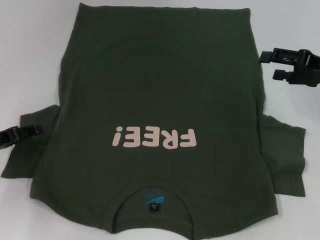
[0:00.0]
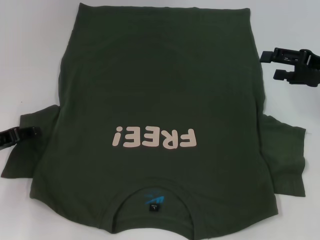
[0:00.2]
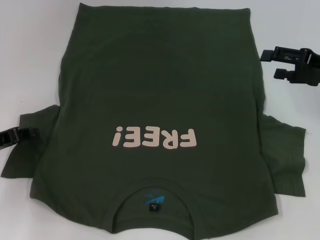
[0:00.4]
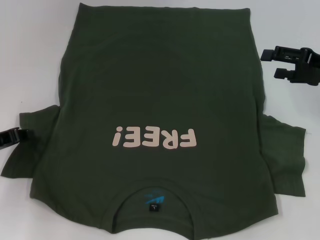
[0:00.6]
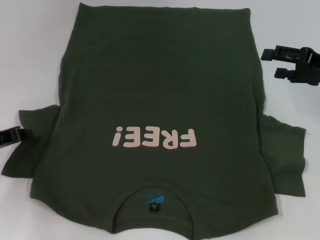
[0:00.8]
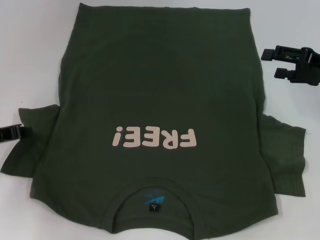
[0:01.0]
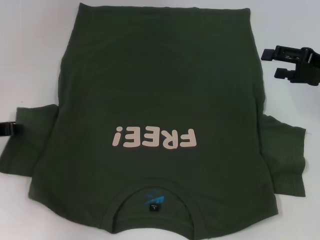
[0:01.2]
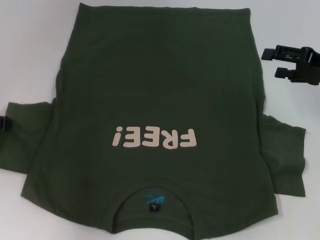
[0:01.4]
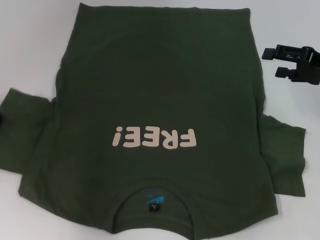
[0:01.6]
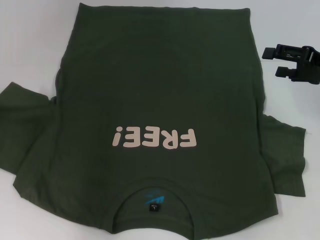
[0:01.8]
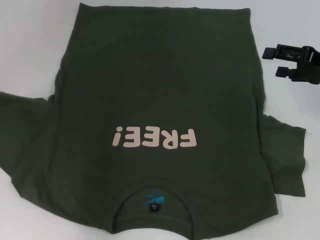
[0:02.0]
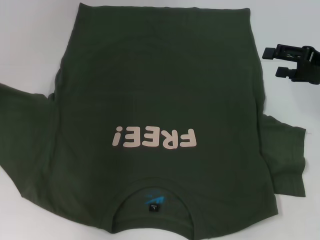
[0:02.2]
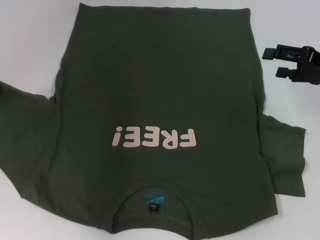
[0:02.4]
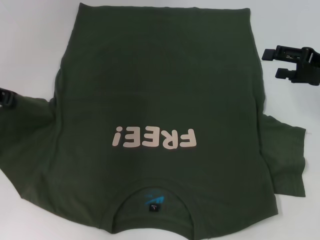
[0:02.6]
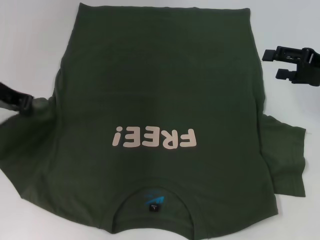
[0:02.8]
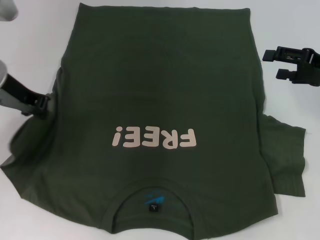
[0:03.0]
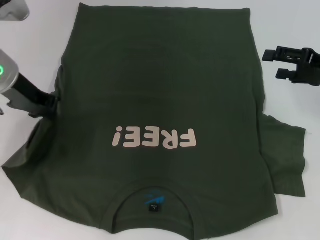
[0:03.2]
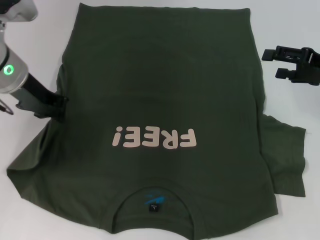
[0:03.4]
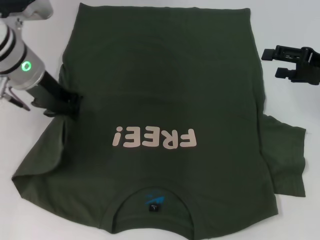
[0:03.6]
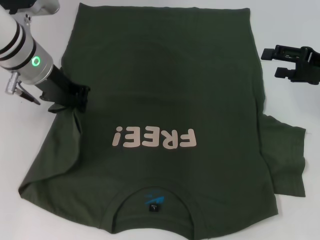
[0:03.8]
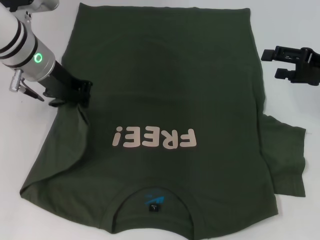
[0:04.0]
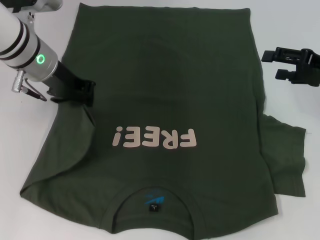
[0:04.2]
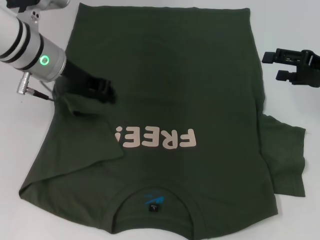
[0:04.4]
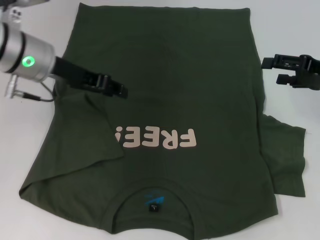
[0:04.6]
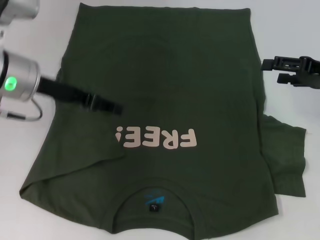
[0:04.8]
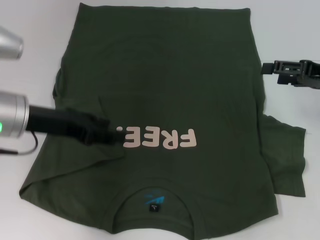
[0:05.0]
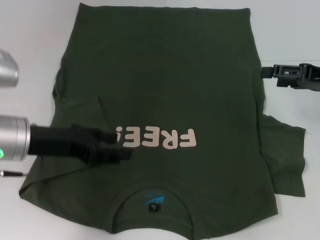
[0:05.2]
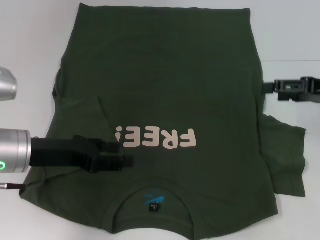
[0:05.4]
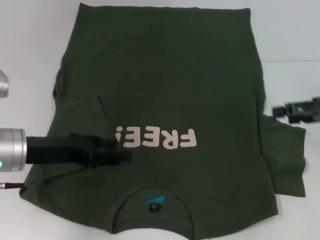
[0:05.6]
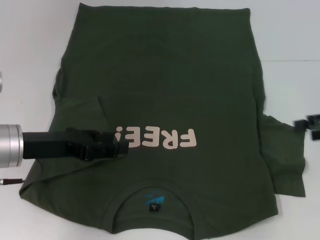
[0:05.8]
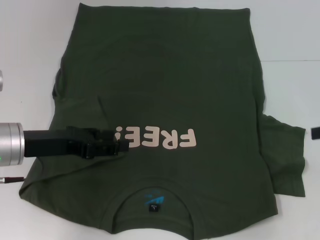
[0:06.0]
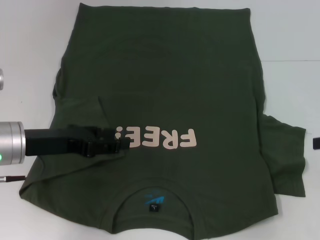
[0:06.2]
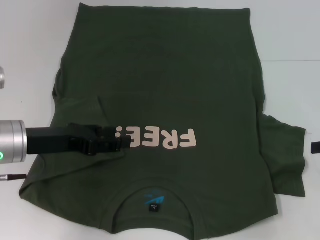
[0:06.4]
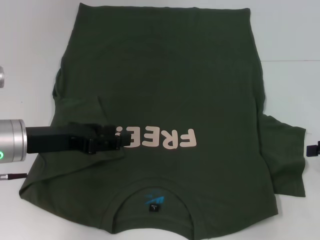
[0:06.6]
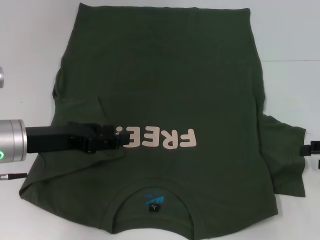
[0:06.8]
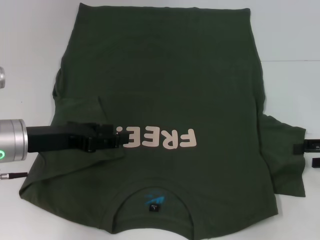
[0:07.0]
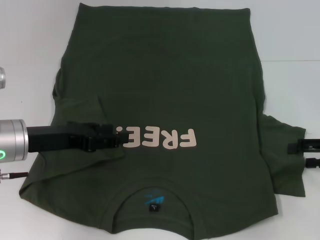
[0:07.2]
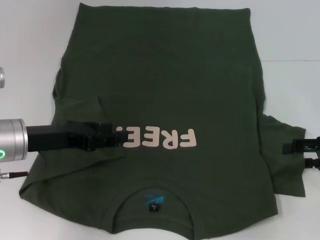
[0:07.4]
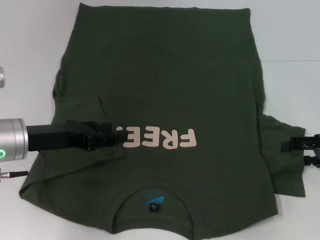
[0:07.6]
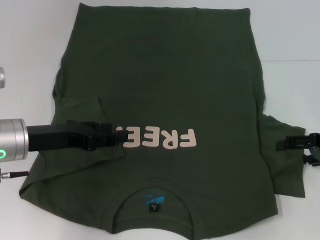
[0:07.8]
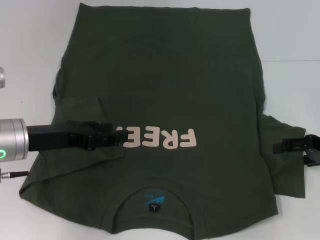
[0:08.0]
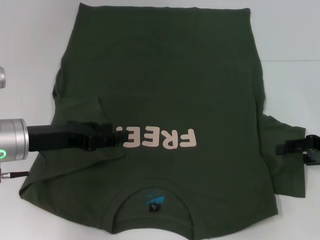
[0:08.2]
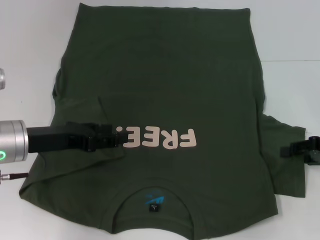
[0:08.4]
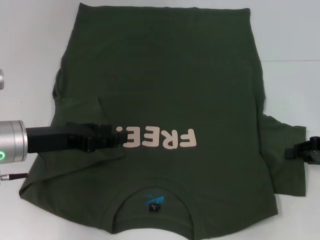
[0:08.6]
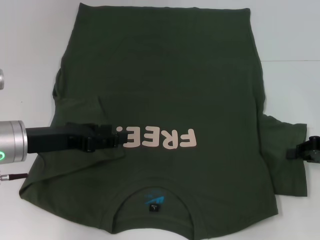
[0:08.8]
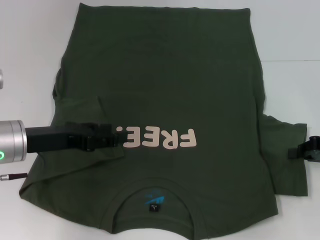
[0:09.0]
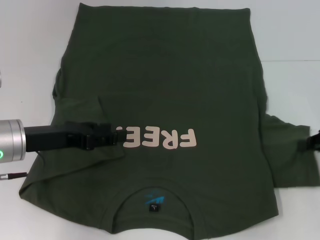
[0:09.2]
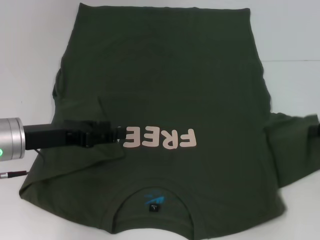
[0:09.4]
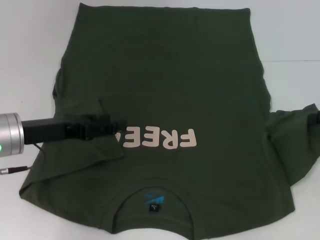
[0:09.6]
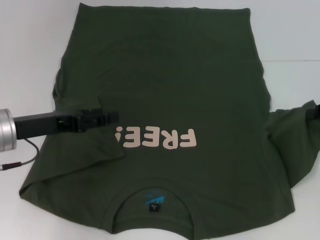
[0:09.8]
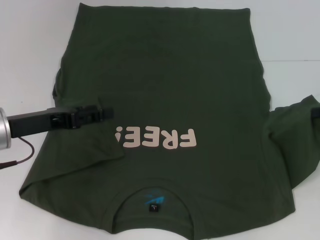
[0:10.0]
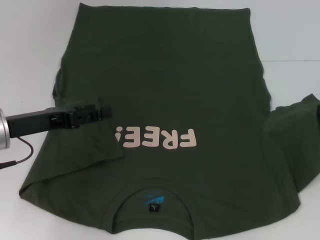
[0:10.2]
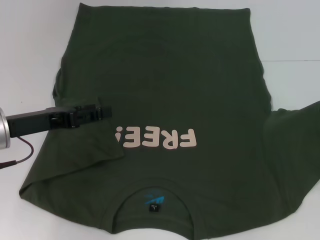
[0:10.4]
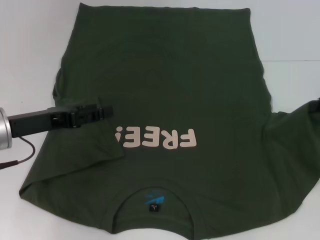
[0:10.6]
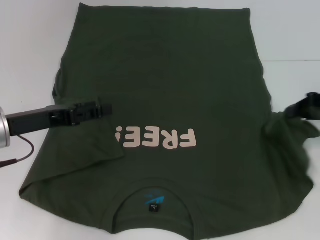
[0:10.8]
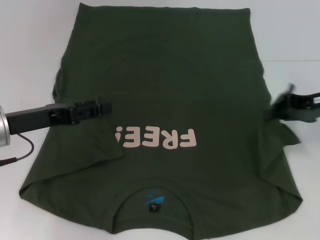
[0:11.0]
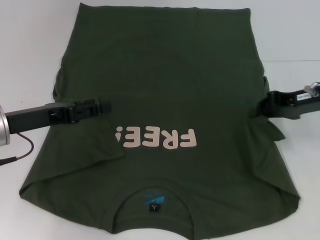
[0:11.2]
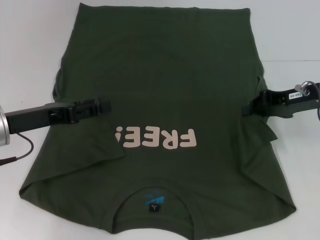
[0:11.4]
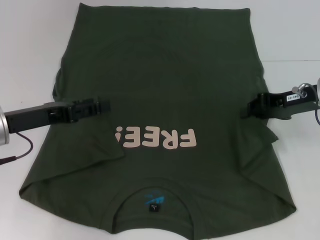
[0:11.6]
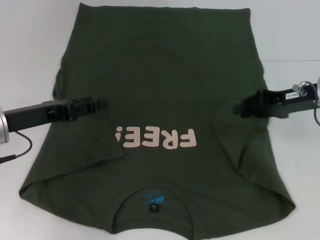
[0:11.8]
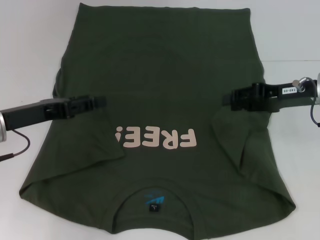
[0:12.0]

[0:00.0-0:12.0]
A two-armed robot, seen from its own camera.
Step, 0:00.0 to 0:04.8: Fold the bottom left sleeve with your left hand.
0:00.0 to 0:01.6: The left gripper is displaced upward by roughly 5 cm, and closes up.
0:01.6 to 0:03.0: The left gripper heads to the right and upward, covering some 10 cm.
0:03.0 to 0:04.4: The left gripper goes about 5 cm to the right.
0:04.4 to 0:06.0: The left gripper moves backward, downward and to the left, about 15 cm, and opens its fingers. Meanwhile the right gripper travels backward and to the right by roughly 10 cm.
0:06.0 to 0:07.6: The right gripper goes some 5 cm downward.
0:07.6 to 0:09.0: The right gripper closes up.
0:09.0 to 0:10.4: The right gripper travels upward by some 5 cm.
0:10.4 to 0:12.0: The right gripper goes roughly 10 cm to the left.

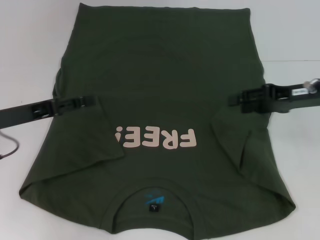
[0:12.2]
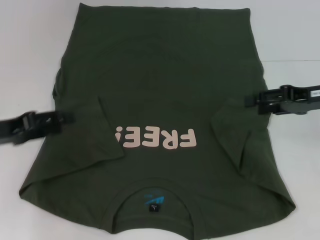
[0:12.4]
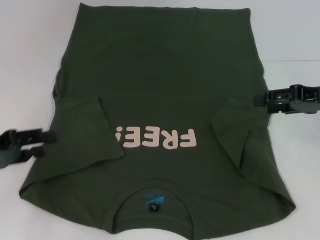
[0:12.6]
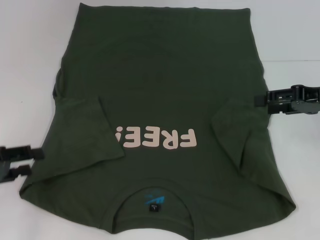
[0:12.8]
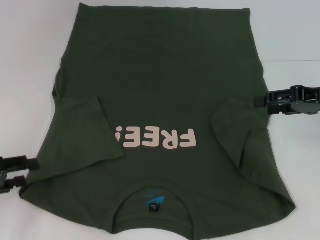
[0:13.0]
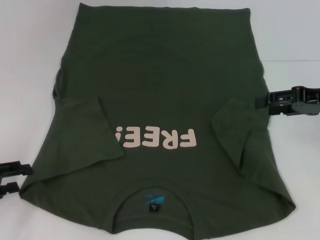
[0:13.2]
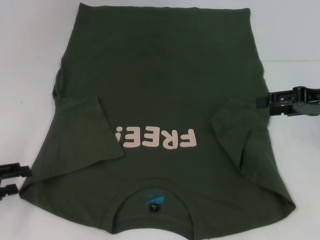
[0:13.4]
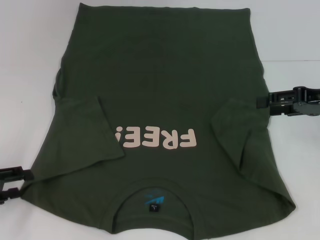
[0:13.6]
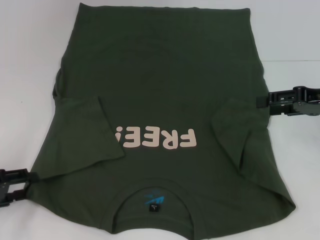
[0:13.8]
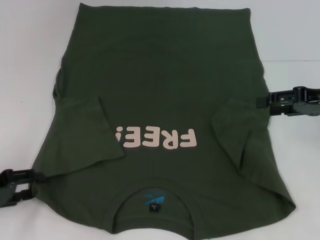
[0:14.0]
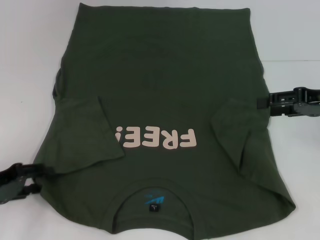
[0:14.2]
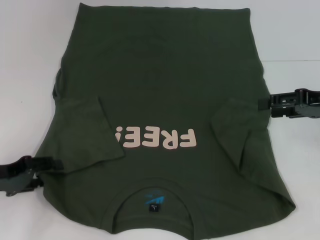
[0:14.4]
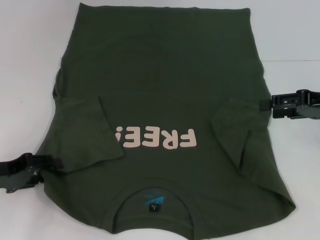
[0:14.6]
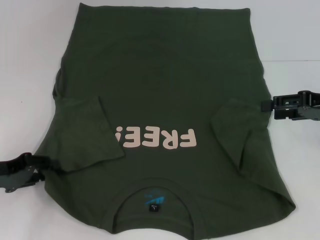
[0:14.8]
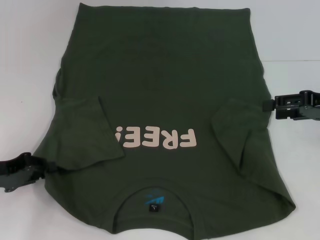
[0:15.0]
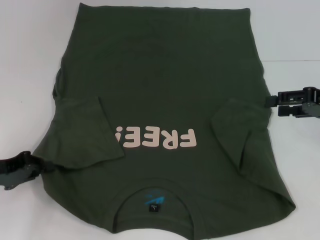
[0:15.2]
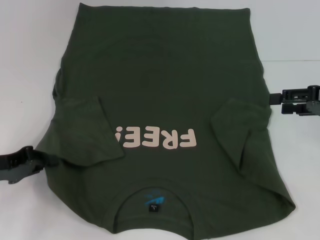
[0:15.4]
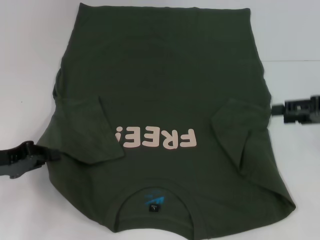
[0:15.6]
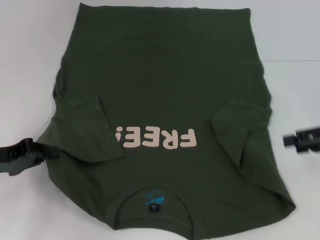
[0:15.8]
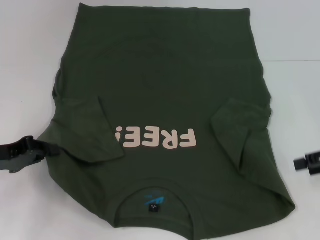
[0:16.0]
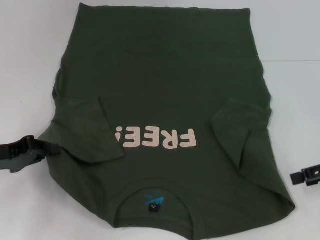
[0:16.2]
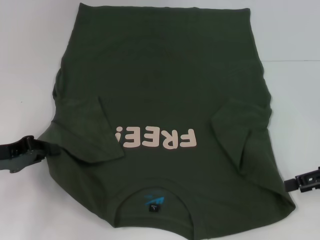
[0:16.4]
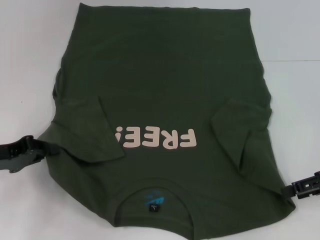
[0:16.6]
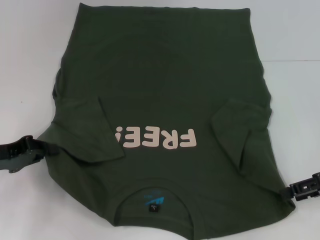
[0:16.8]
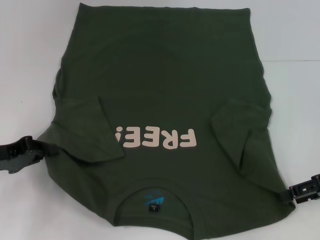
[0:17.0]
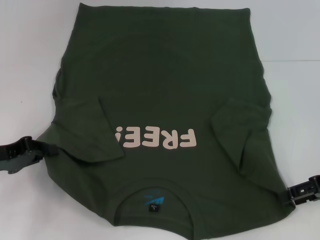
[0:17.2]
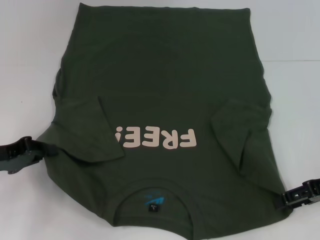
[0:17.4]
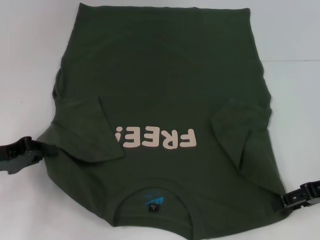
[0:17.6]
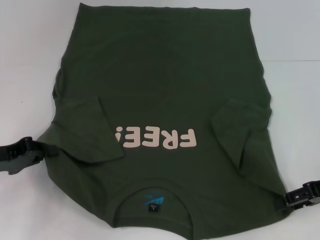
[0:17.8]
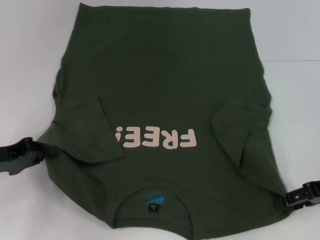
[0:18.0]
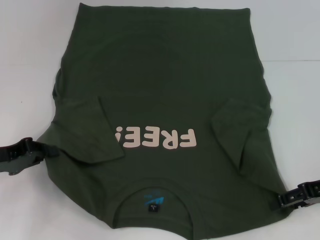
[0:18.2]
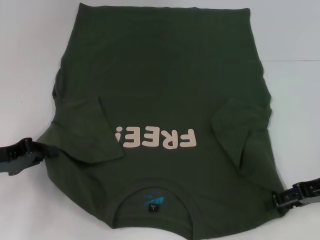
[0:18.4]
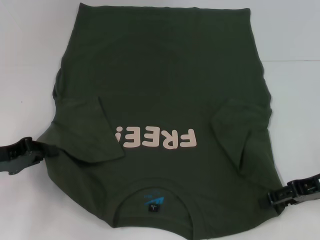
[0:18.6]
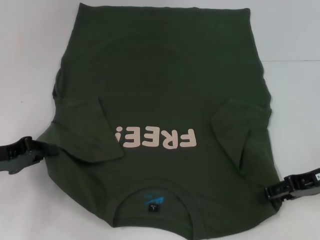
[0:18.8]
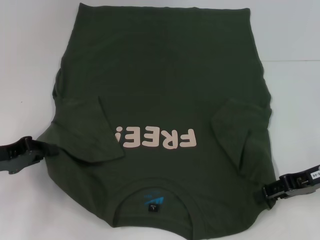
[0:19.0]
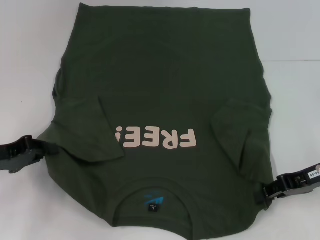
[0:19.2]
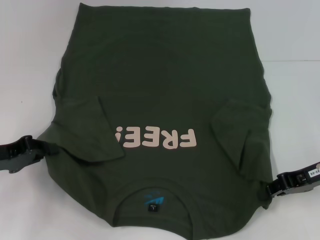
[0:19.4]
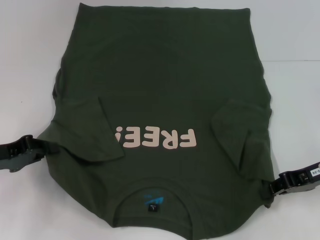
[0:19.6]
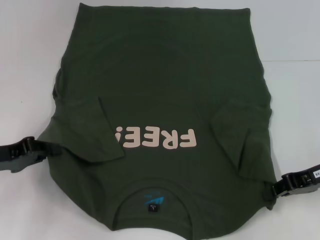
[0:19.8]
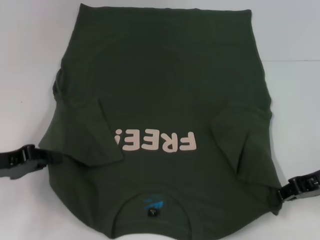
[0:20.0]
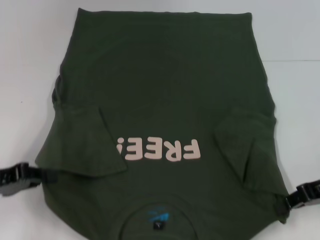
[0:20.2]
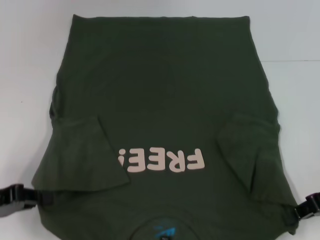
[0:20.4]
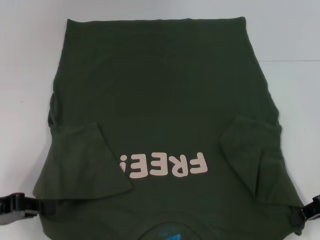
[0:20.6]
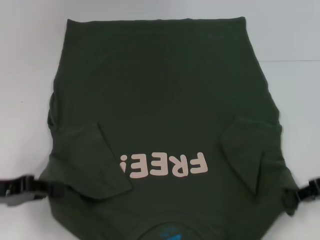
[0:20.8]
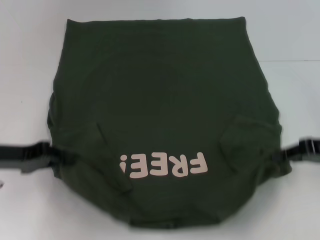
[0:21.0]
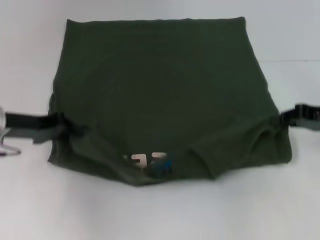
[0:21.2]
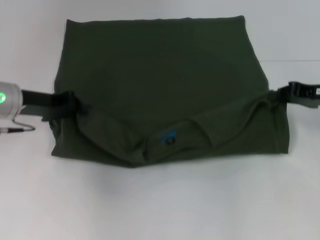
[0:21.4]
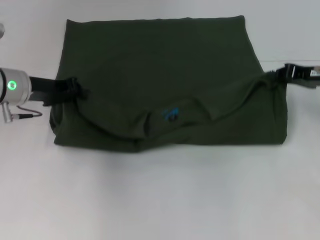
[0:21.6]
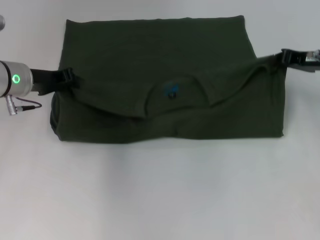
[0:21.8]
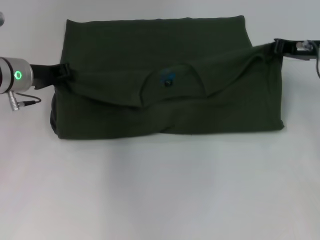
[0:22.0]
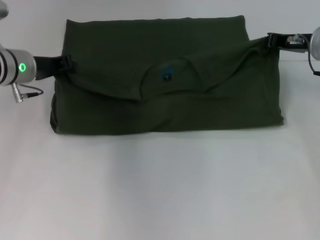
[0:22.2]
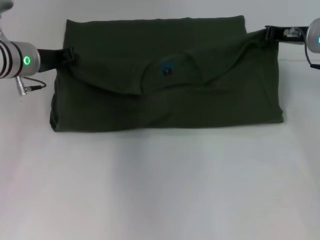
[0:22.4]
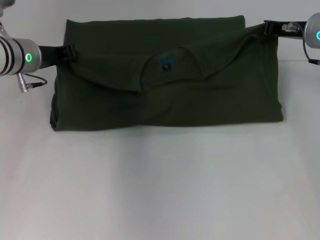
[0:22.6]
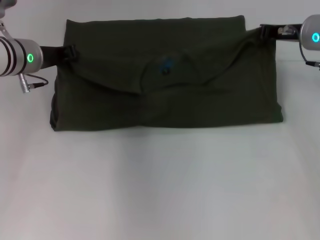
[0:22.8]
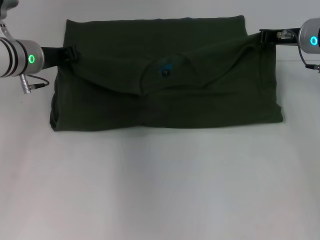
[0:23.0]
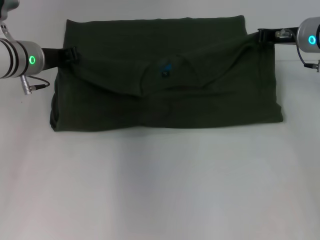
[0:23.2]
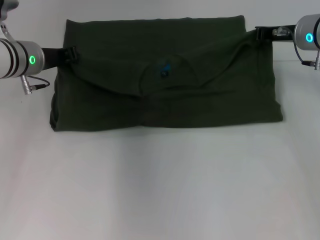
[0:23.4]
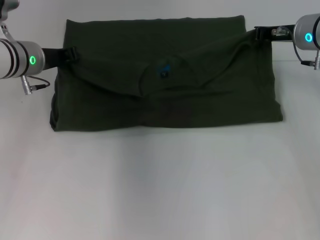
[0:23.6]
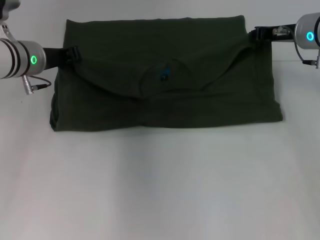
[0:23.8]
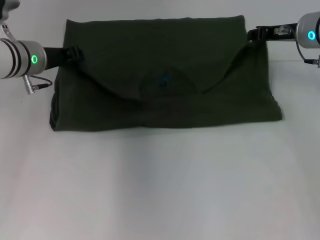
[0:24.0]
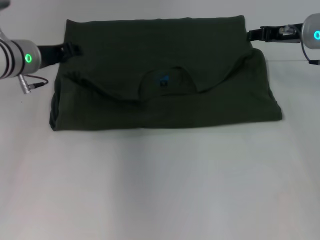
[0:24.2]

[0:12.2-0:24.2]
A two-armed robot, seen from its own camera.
Step, 0:12.6 to 0:15.2: Grab the bottom left corner with your left hand.
Step, 0:15.4 to 0:18.4: Grab the bottom right corner with your right hand.
0:12.2 to 0:13.8: The left gripper heads to the left, backward and downward, covering roughly 10 cm.
0:13.8 to 0:15.2: The left gripper closes up.
0:15.2 to 0:16.6: The right gripper goes approximately 5 cm backward.
0:16.6 to 0:18.2: There are only small adjustments of the grippers.
0:18.2 to 0:19.8: The right gripper closes up.
0:19.8 to 0:21.2: The left gripper shifts some 5 cm forward. Meanwhile the right gripper shifts by roughly 5 cm.
0:21.2 to 0:22.6: The right gripper travels forward and to the left by some 15 cm. Meanwhile the left gripper travels forward by some 10 cm.
0:22.6 to 0:24.2: The left gripper opens.
